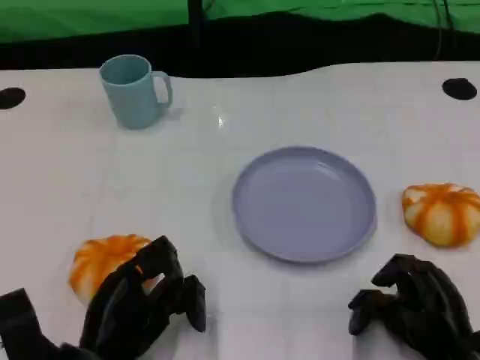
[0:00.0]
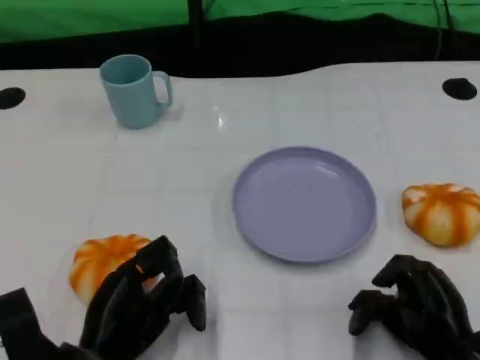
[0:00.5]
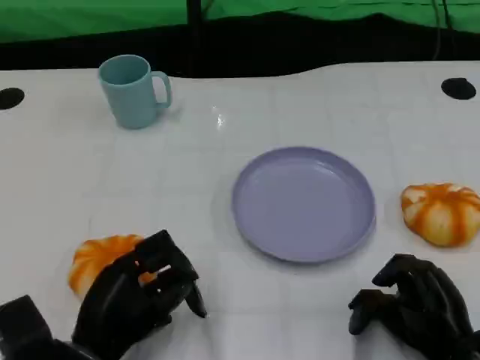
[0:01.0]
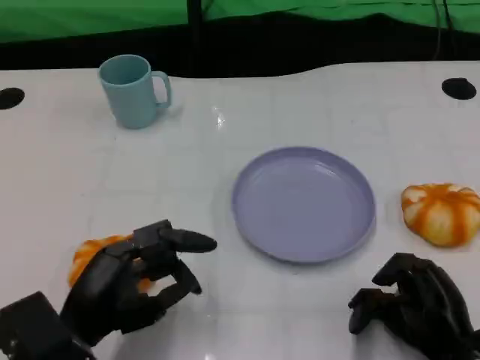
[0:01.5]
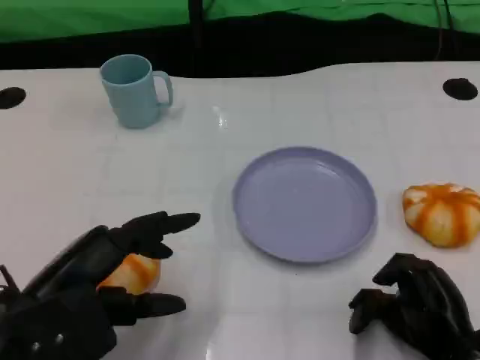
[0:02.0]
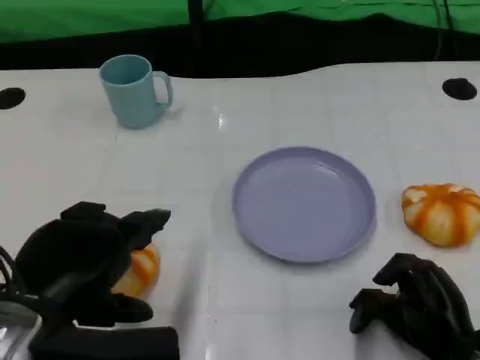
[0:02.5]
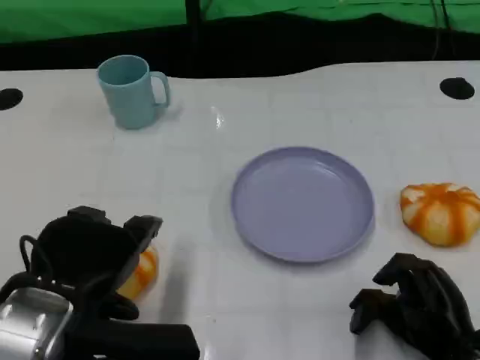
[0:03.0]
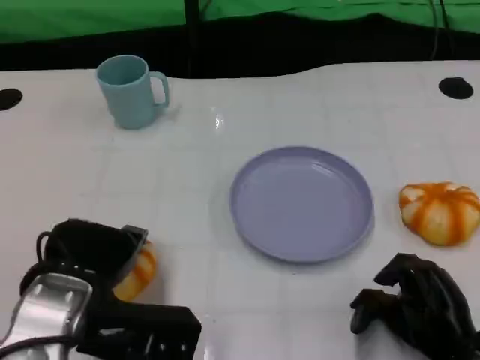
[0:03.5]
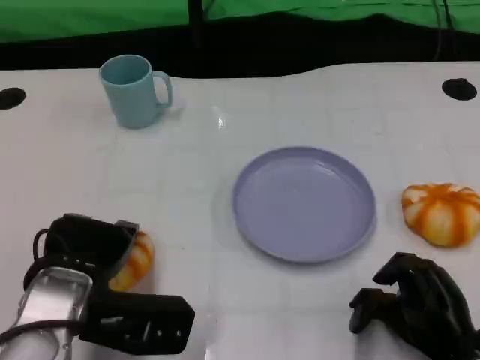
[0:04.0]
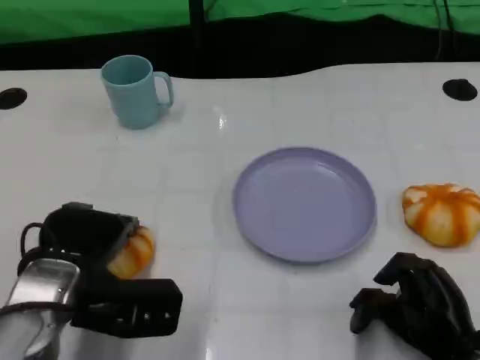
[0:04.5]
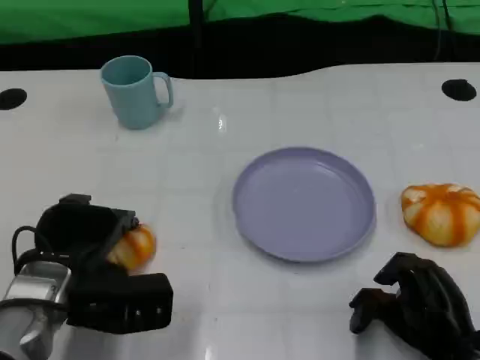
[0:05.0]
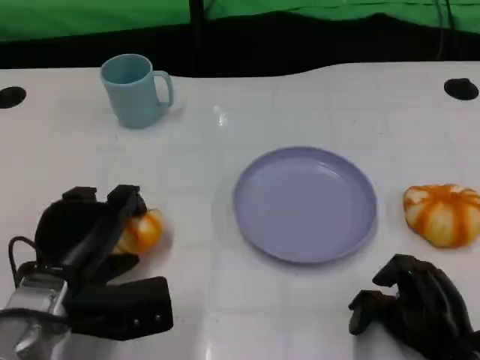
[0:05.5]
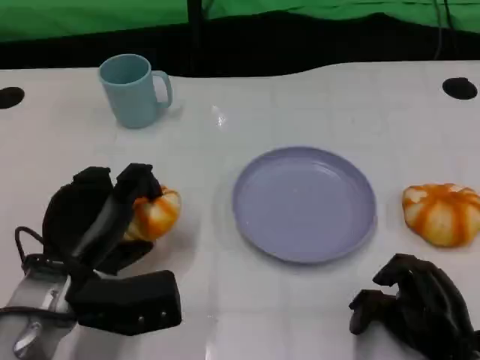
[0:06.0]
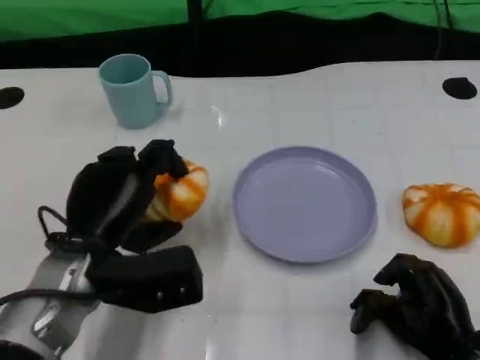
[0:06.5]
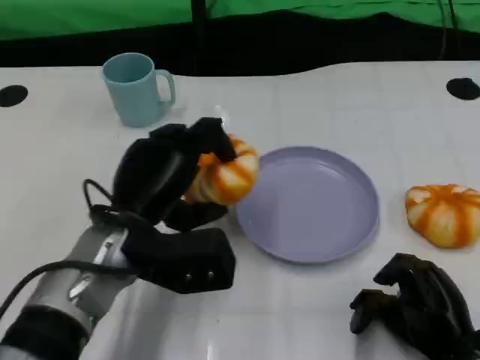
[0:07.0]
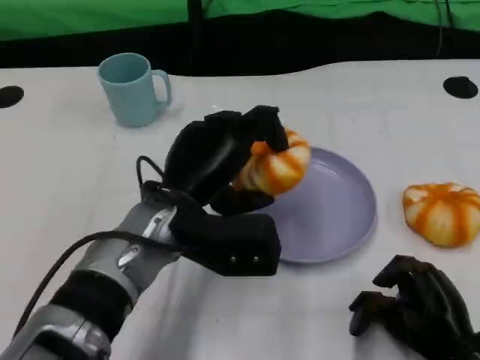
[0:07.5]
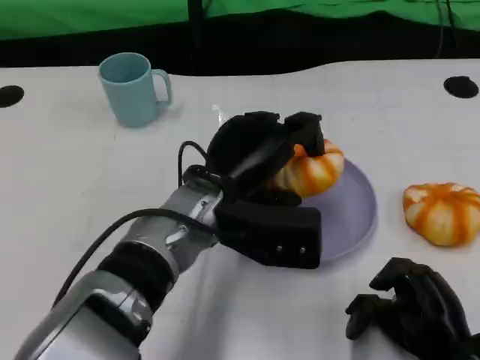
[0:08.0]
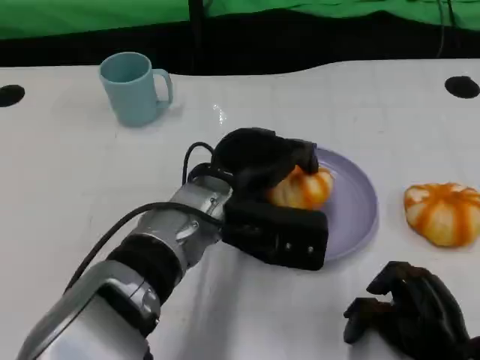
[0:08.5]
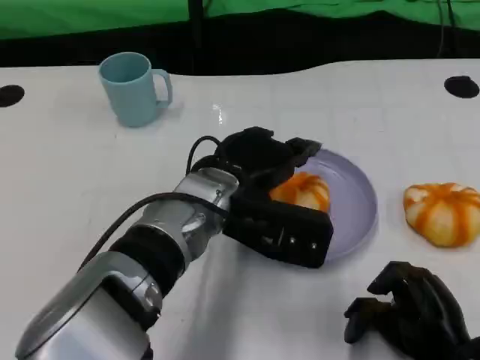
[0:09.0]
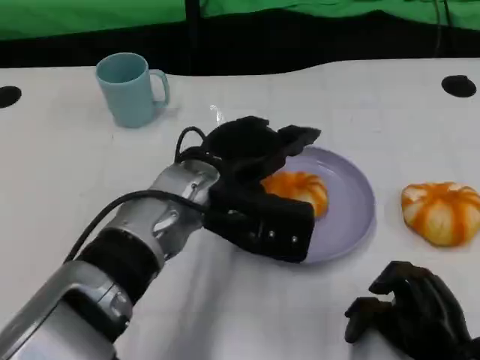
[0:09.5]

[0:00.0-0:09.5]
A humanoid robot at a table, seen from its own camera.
Task of the whole recording: Grasp the bread from the table and place it into the plate.
0:00.0 to 0:02.0: The left hand heads upward, covering some 10 cm.
0:02.0 to 0:04.0: The left hand shifts some 5 cm forward.
0:05.5 to 0:07.5: The left hand heads to the right and upward, covering roughly 15 cm.

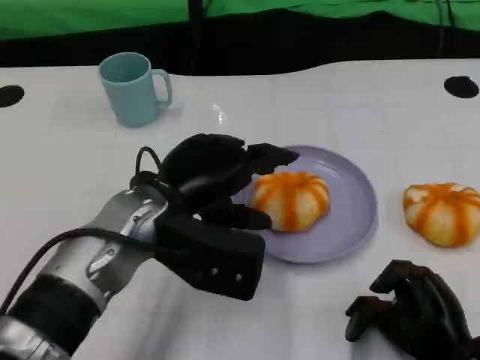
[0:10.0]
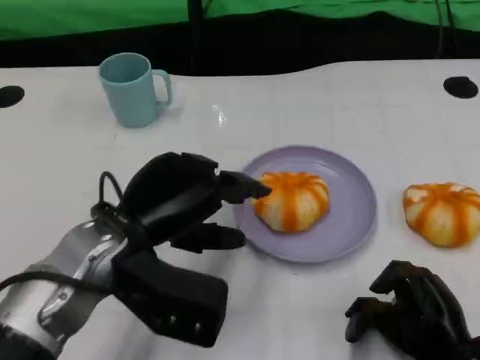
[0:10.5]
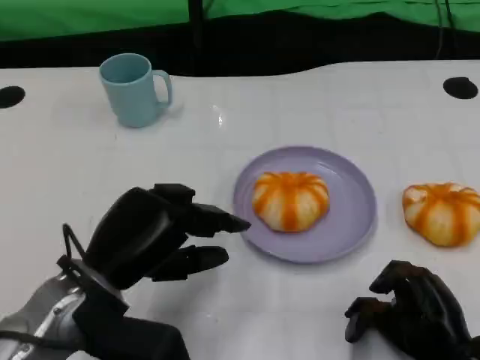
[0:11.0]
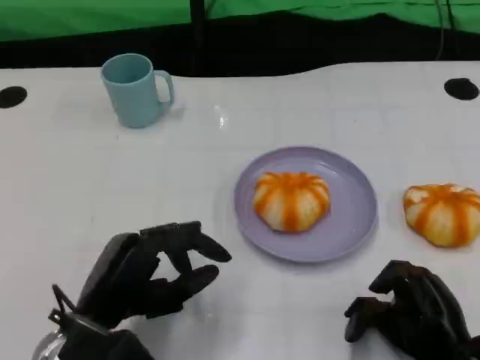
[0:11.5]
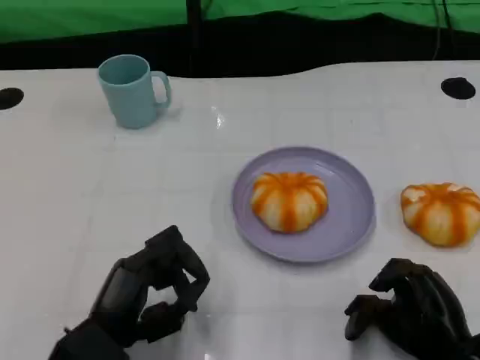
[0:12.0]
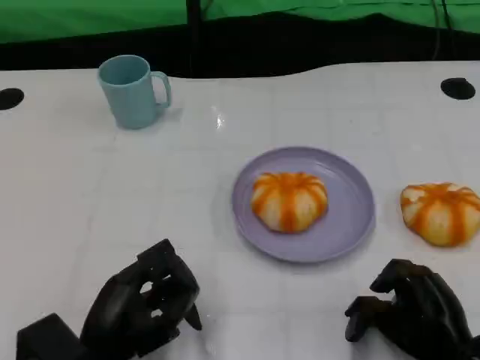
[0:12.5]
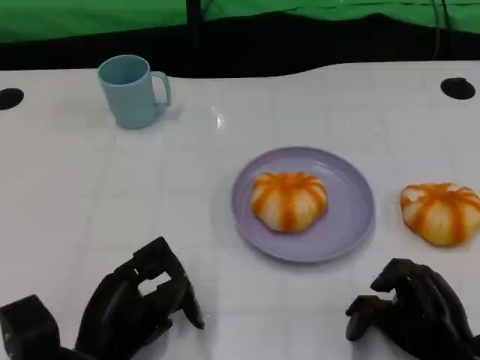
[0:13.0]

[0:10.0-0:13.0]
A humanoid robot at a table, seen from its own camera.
Task of the whole recording: Grasp the bread from the table and place it into the plate.
0:10.0 to 0:11.5: The left hand is displaced backward, downward and to the left by some 15 cm.

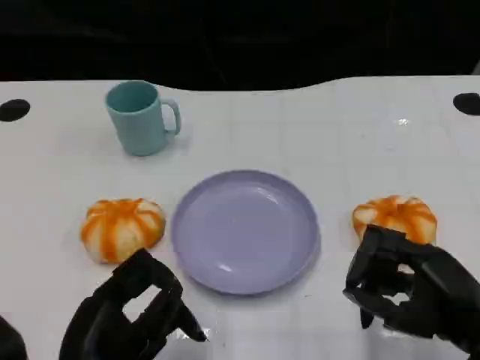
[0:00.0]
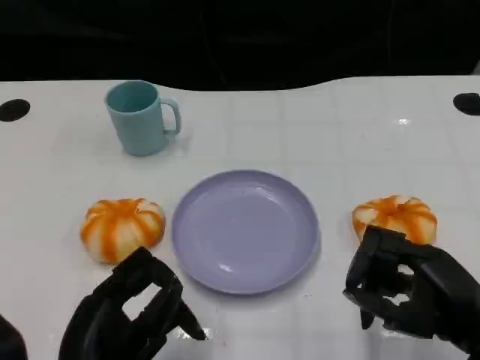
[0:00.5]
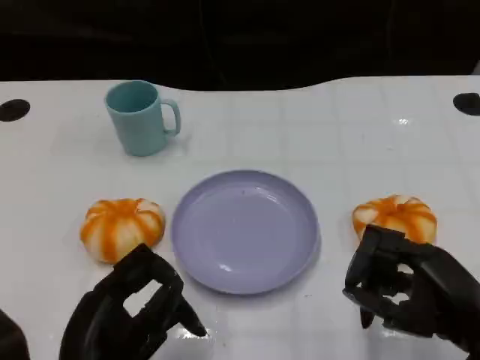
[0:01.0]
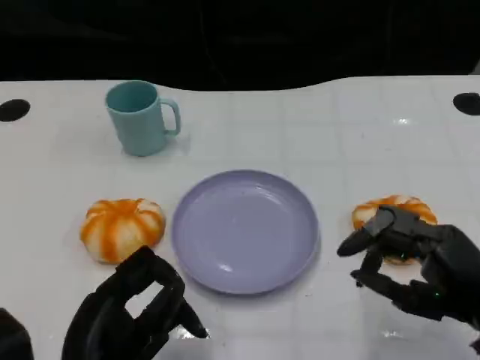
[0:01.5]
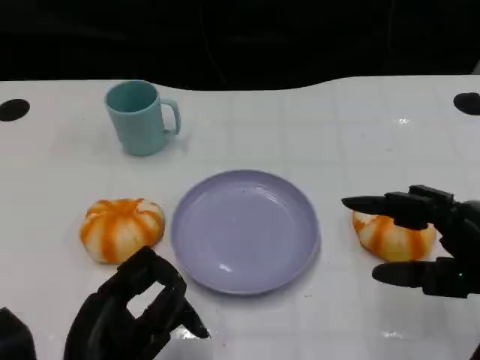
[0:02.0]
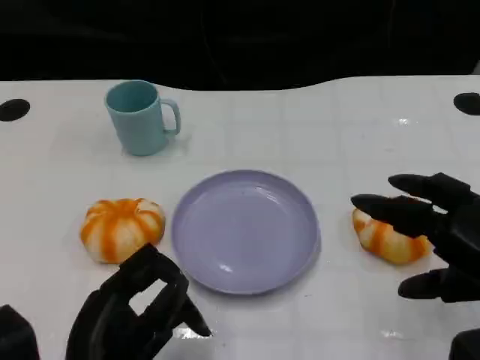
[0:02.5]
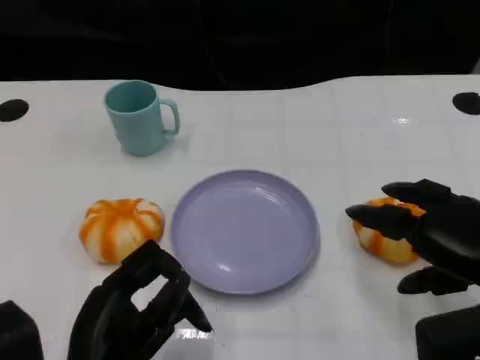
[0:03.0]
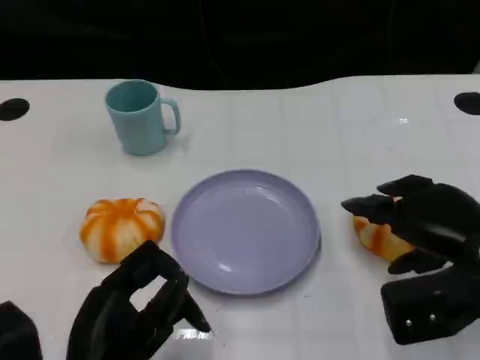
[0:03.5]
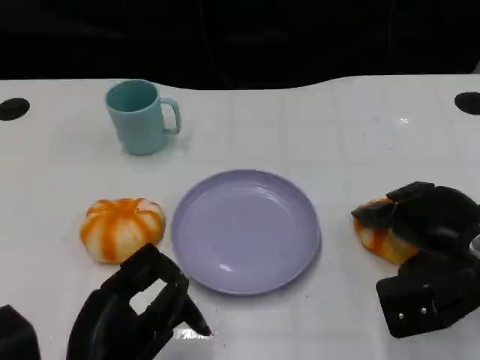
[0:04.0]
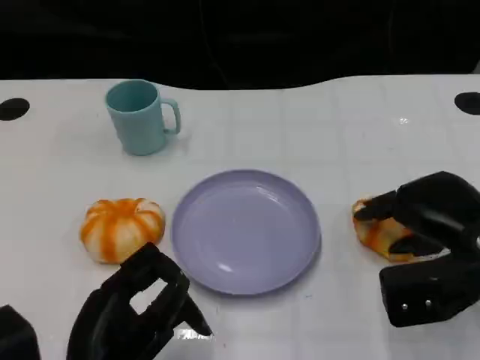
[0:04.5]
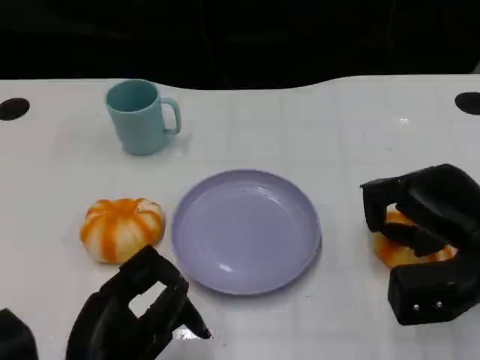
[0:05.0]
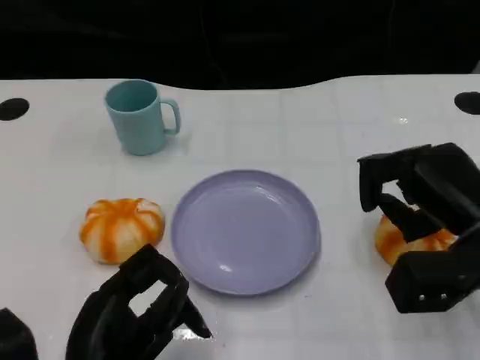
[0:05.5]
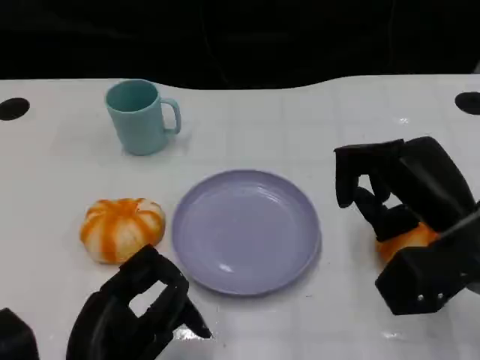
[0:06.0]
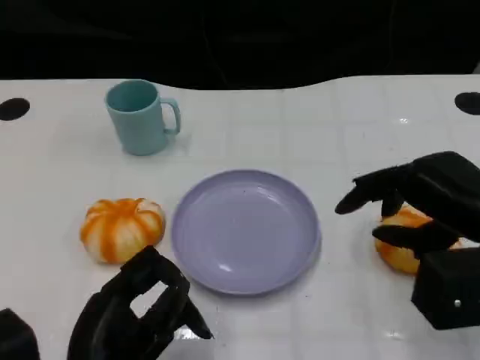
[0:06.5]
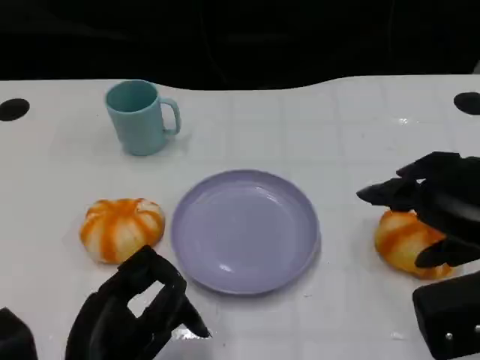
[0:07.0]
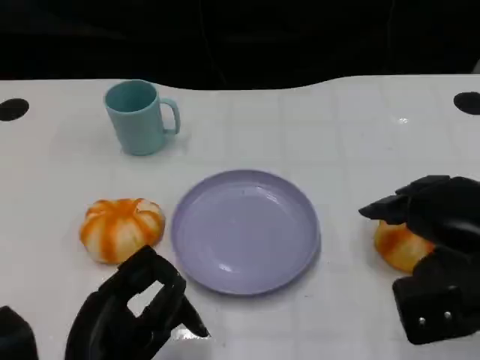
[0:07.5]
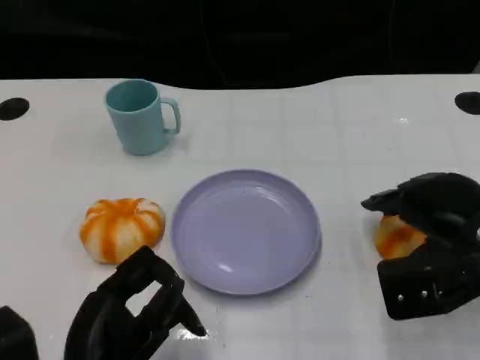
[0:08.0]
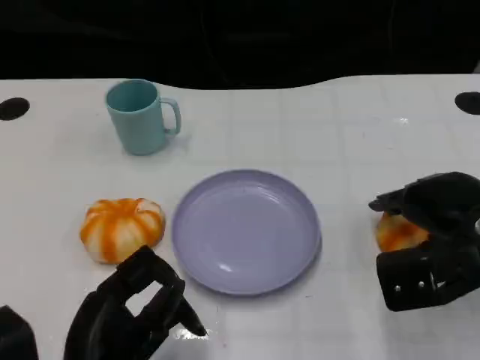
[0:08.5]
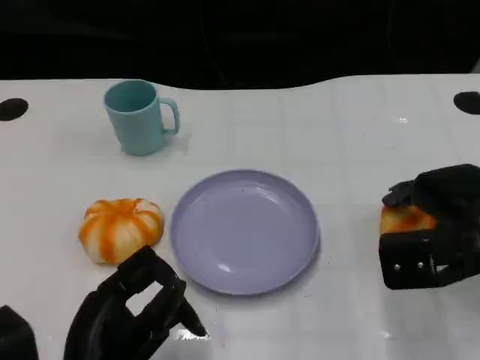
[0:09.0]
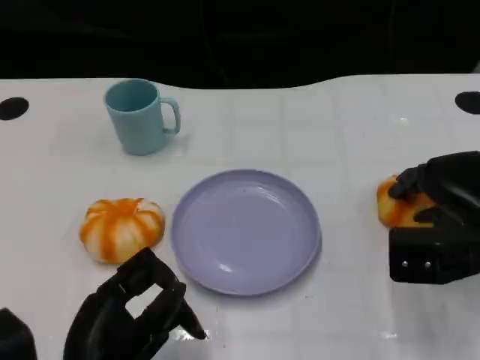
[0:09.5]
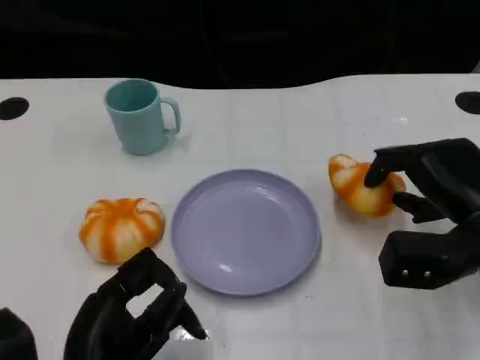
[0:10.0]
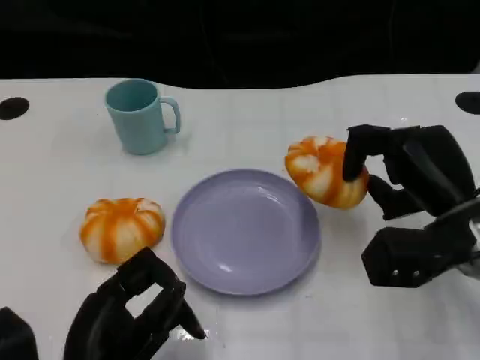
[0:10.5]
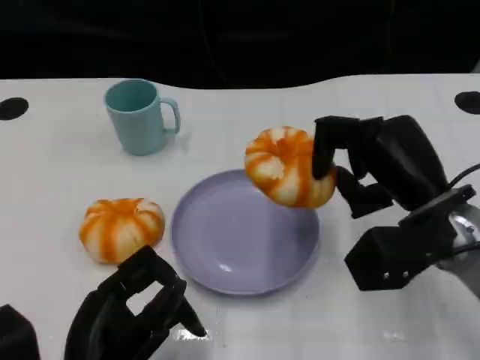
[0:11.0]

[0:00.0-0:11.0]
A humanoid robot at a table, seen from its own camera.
Task of the whole recording: Grasp the bread from the table and place it into the plate.
0:00.0 to 0:02.0: The right hand ends up approximately 5 cm from where it was.
0:02.0 to 0:03.5: The right hand is displaced forward by about 5 cm.
0:07.5 to 0:09.0: The hands stay close to where they were, moving slightly.
0:09.0 to 0:11.0: The right hand goes approximately 5 cm to the left.

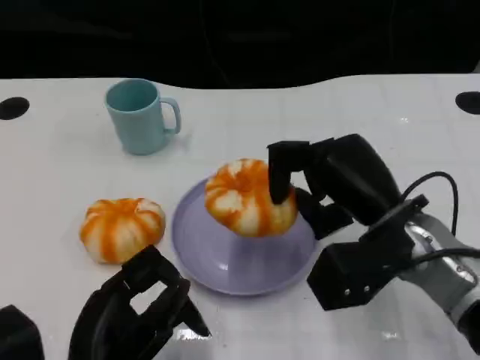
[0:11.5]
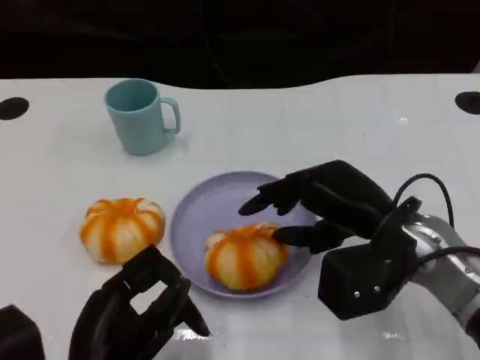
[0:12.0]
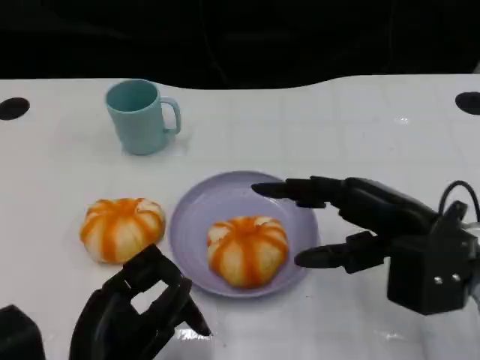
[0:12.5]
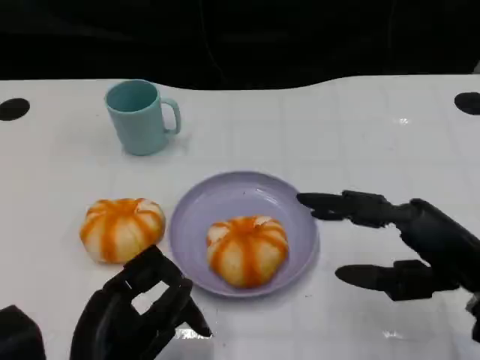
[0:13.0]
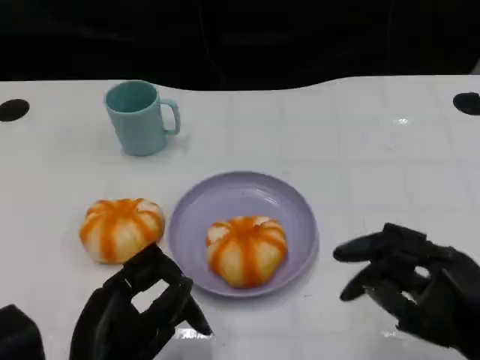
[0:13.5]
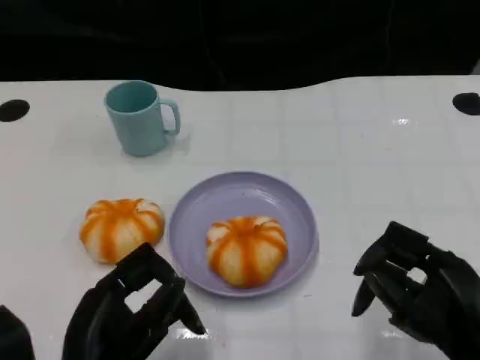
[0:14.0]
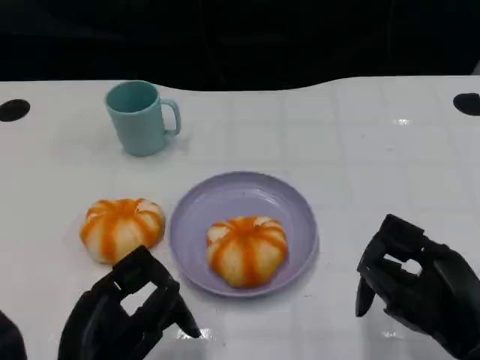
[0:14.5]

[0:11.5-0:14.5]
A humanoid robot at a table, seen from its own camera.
Task of the whole recording: Grasp the bread from the table and place it into the plate.
0:11.5 to 0:13.0: The right hand is displaced to the right and backward by roughly 10 cm.
0:13.0 to 0:14.5: The right hand ends up approximately 5 cm from where it was.
